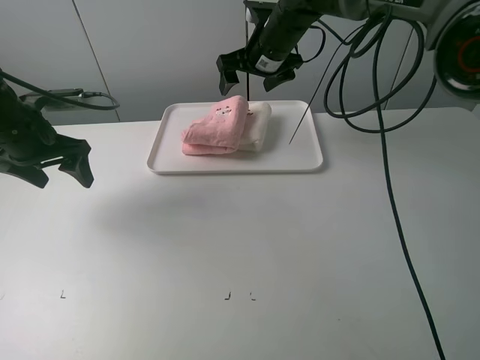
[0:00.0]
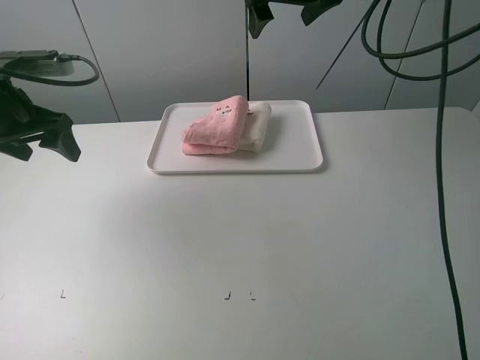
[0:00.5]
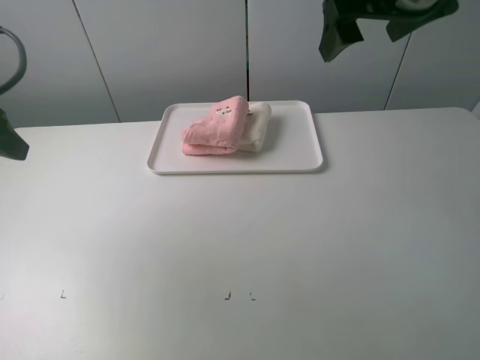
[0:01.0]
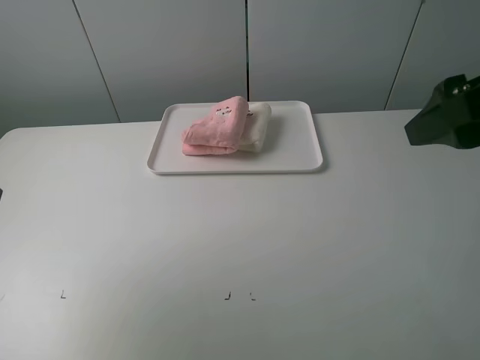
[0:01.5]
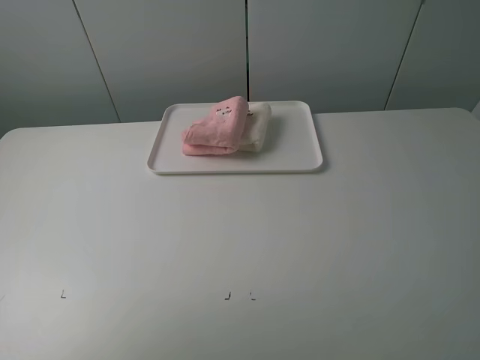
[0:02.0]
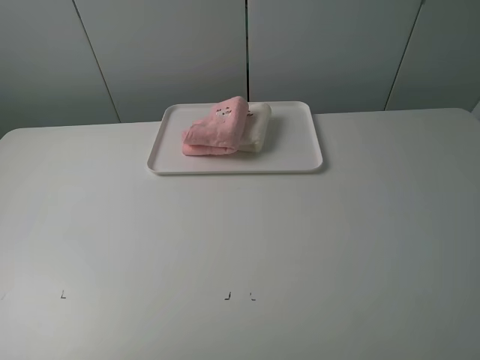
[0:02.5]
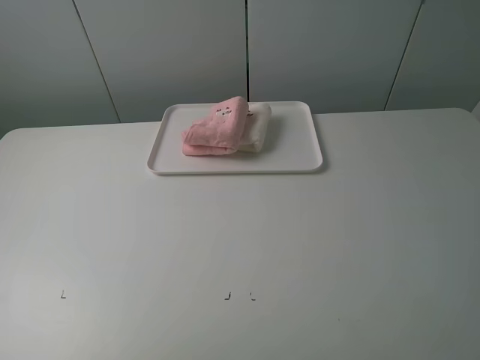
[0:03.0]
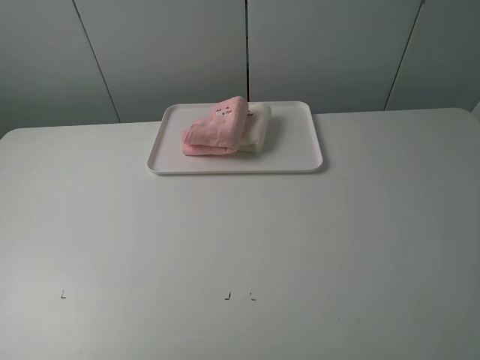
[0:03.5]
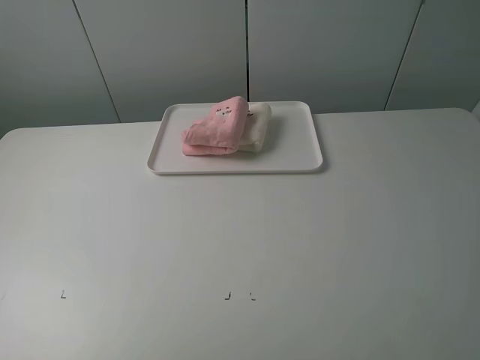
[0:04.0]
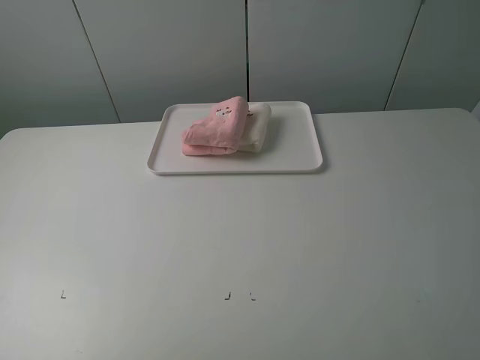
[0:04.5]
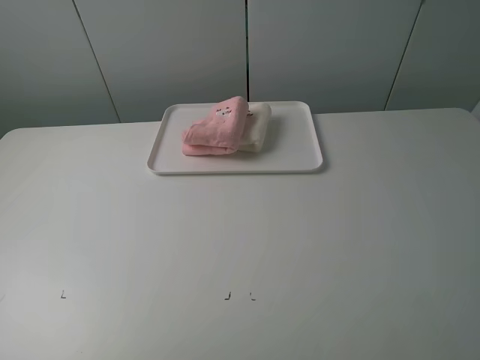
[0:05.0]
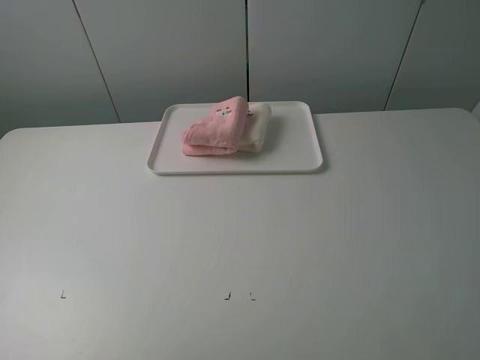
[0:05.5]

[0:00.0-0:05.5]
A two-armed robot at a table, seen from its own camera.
Task of the whole recording: fold one of the towels by two grippers and place it on the tray,then fold another towel by two grippers and place it on the folded towel.
0:00.0 to 0:02.0: The right gripper travels backward and to the right by approximately 50 cm; the left gripper travels backward and upward by some 30 cm.
